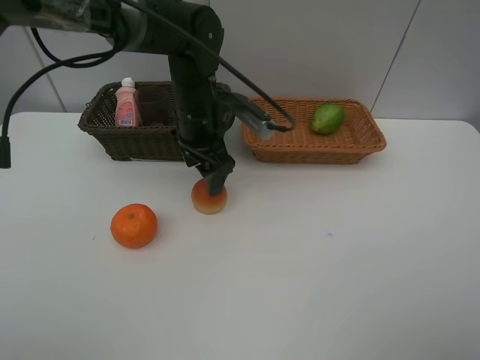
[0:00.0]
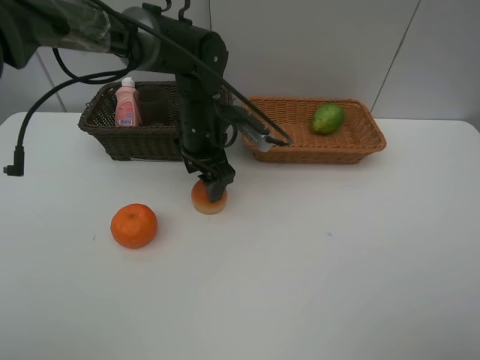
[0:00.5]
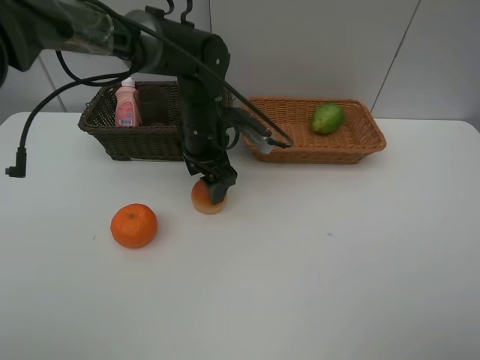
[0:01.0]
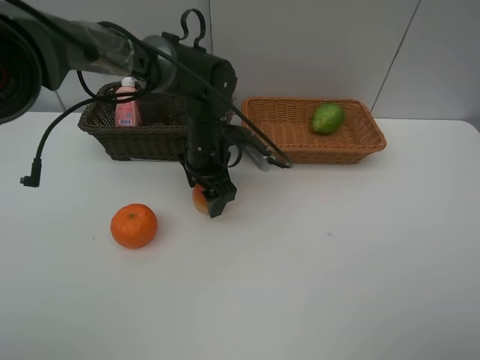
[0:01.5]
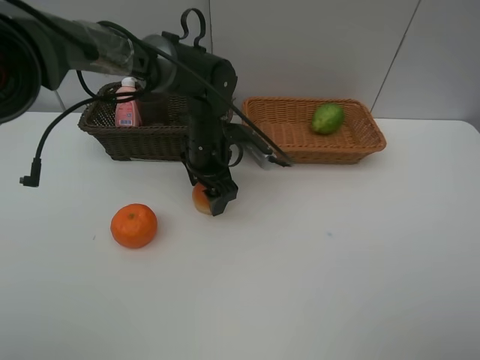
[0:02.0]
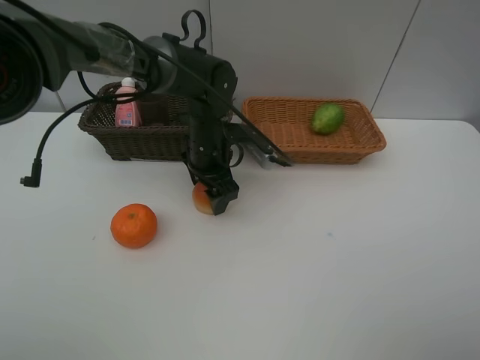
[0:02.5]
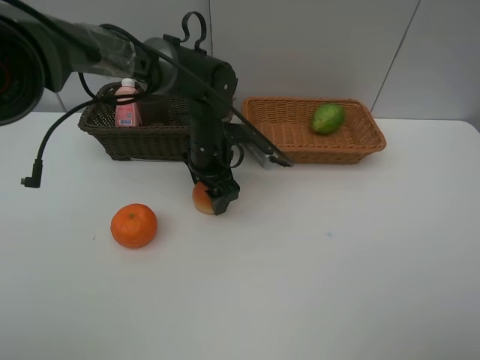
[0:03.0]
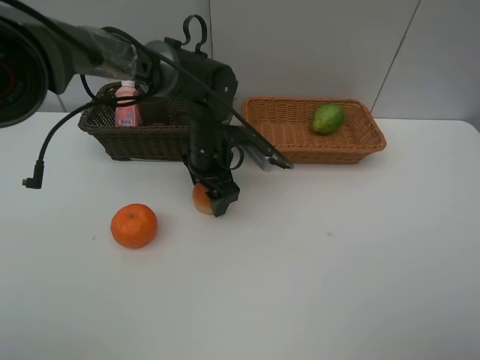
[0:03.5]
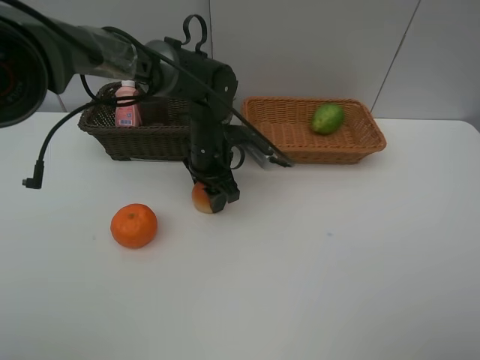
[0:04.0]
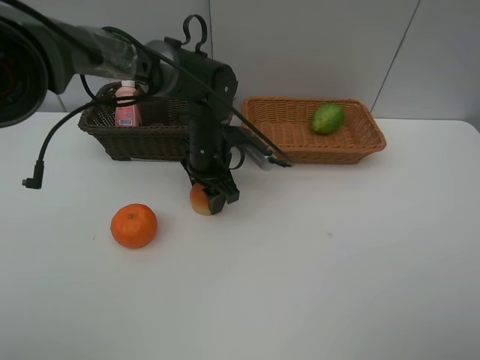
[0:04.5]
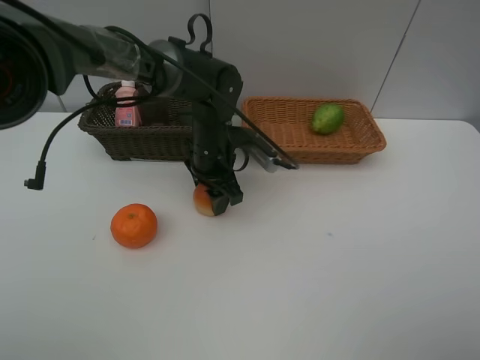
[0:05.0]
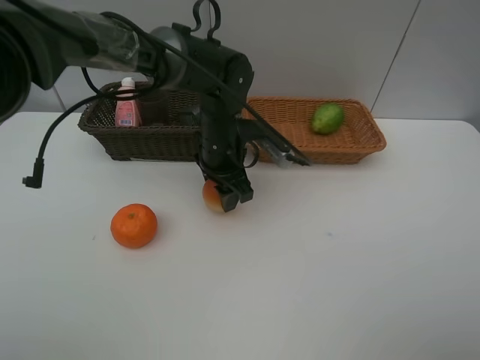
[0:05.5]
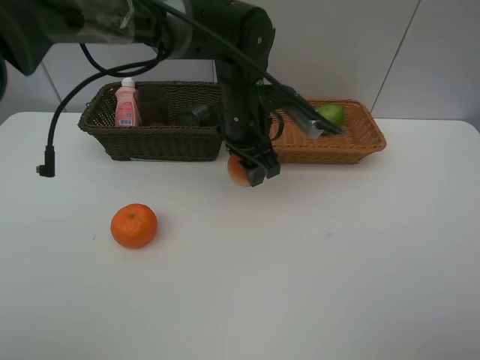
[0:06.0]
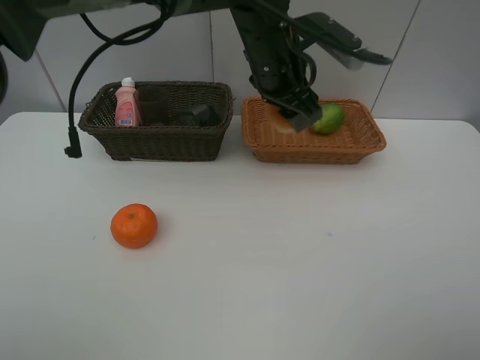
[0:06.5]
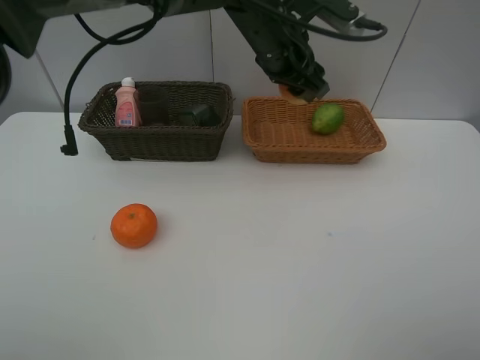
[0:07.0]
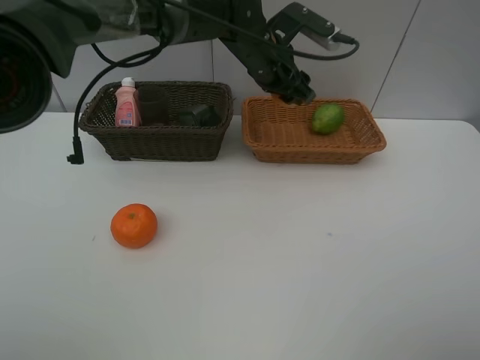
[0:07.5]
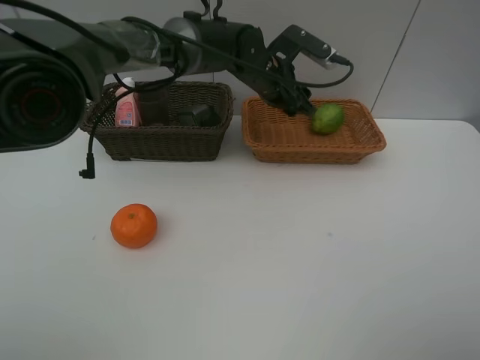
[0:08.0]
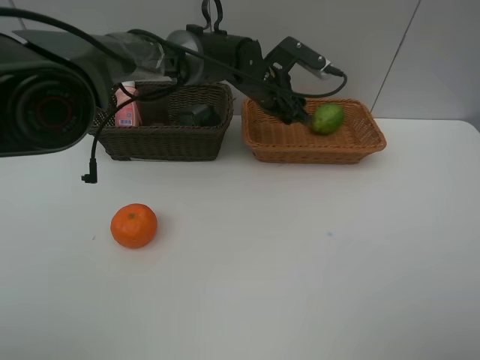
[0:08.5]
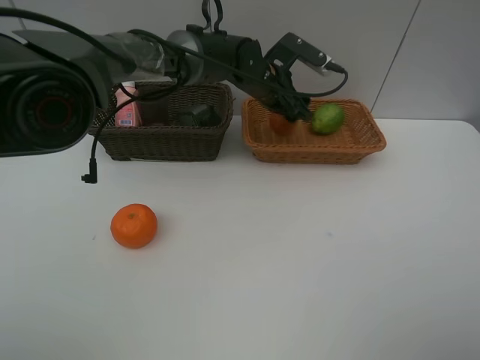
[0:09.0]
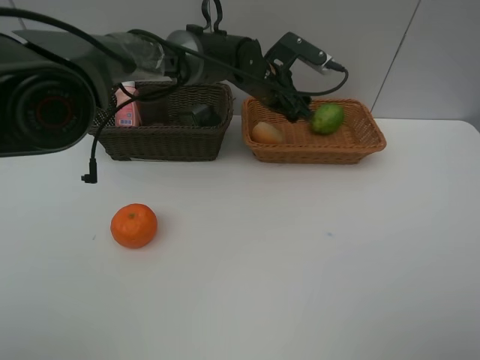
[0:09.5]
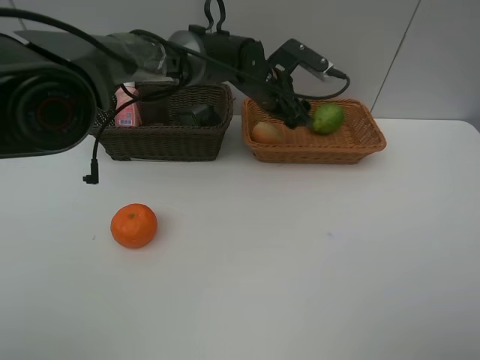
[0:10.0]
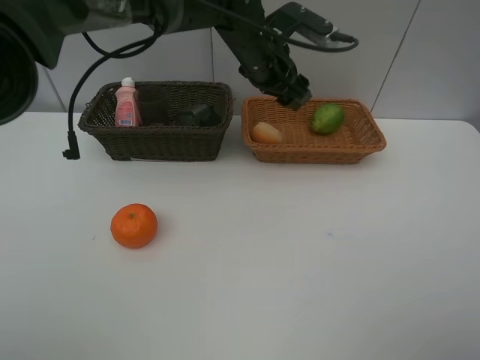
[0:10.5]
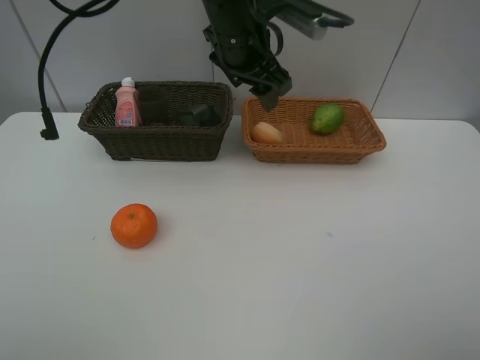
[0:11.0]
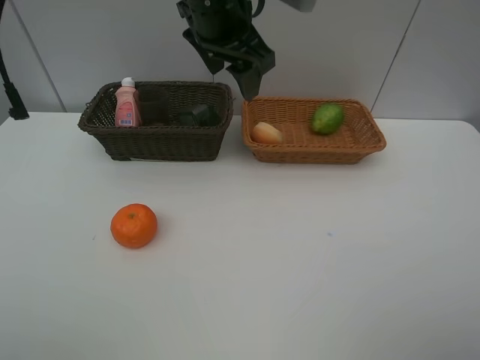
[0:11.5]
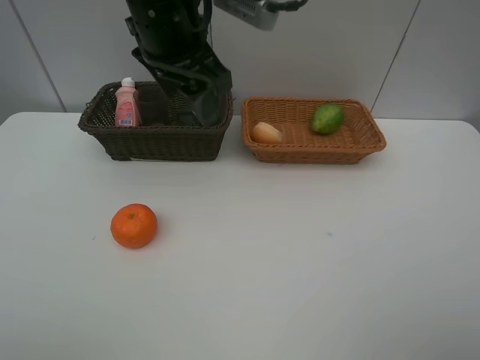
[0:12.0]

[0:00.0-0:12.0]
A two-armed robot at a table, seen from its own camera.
Task of the whole recording: place multiple objects separately in different baskets.
0:00.0 to 0:02.0: The left gripper goes roughly 5 cm downward.
0:02.0 to 0:04.0: Both grippers stay about where they are.
0:04.0 to 0:06.0: The left gripper goes about 10 cm upward and to the right.
0:06.0 to 0:08.0: The left gripper shifts roughly 10 cm forward.
0:08.0 to 0:10.0: The grippers stay close to where they were, moving slightly.
0:10.0 to 0:12.0: The left gripper is displaced upward, backward and to the left by some 25 cm.

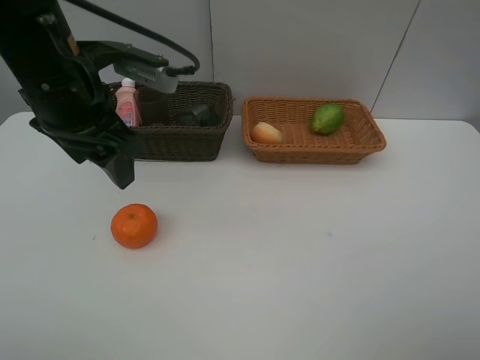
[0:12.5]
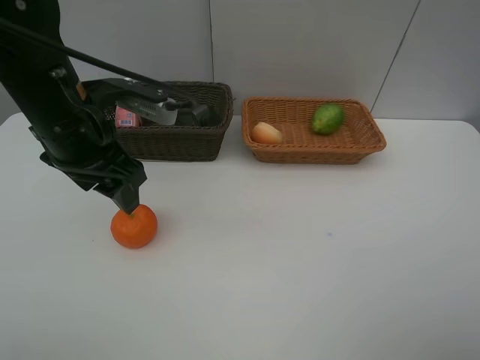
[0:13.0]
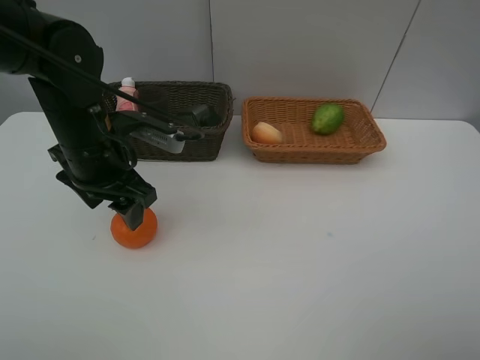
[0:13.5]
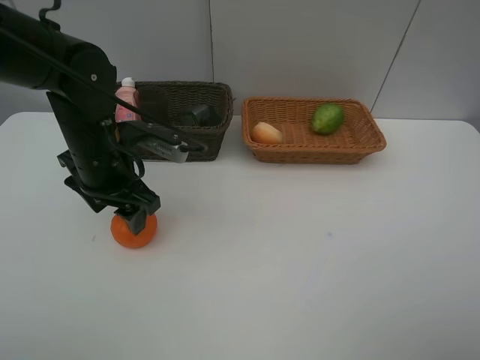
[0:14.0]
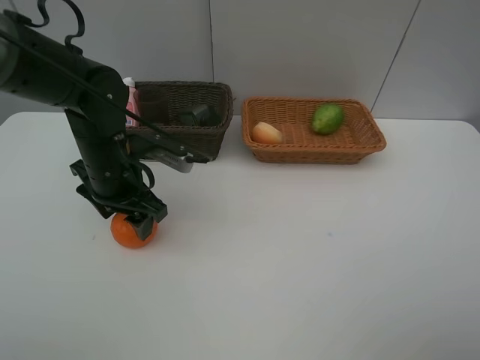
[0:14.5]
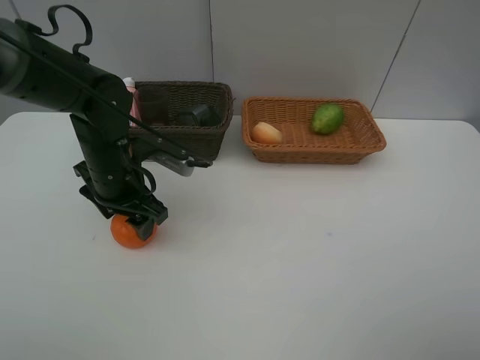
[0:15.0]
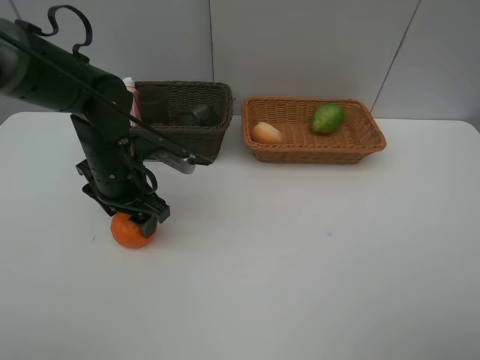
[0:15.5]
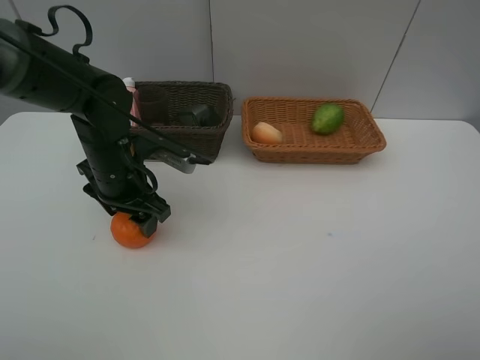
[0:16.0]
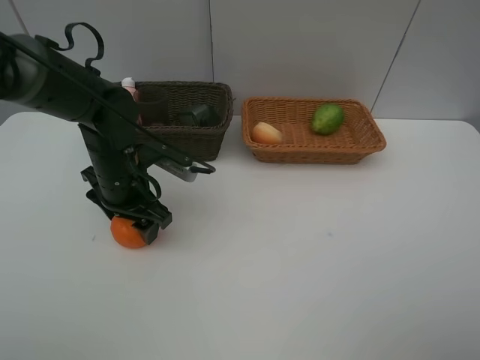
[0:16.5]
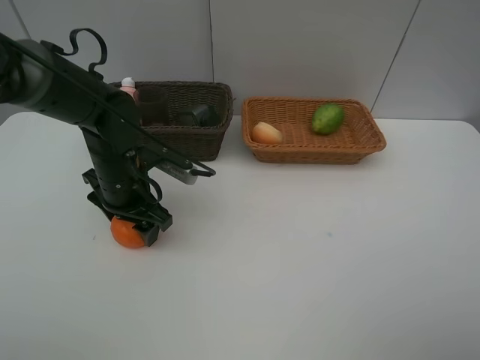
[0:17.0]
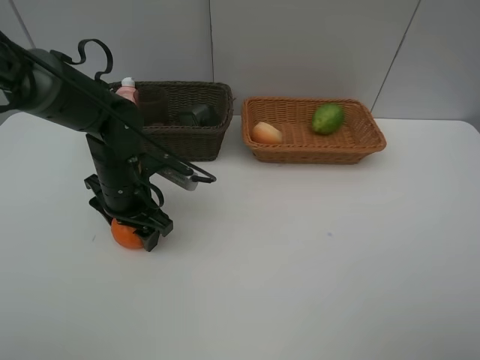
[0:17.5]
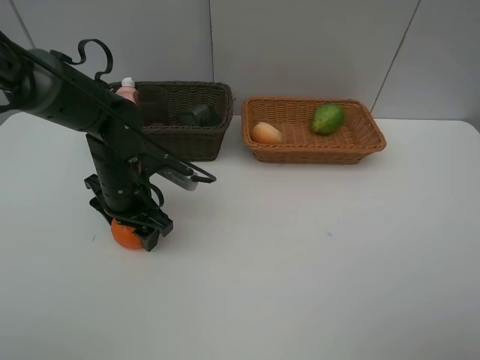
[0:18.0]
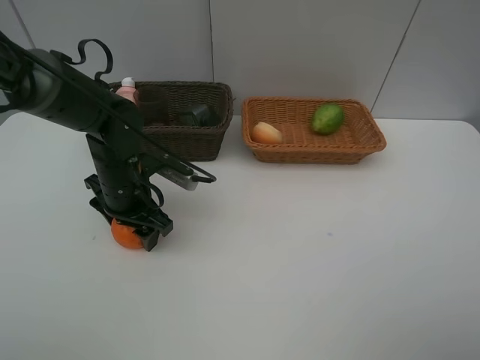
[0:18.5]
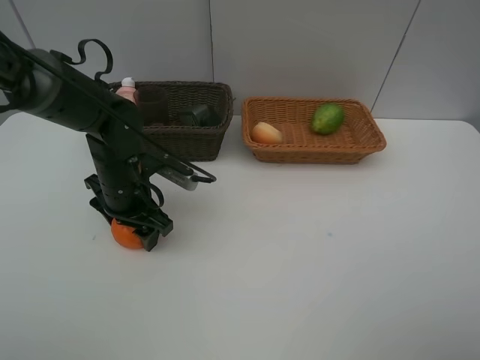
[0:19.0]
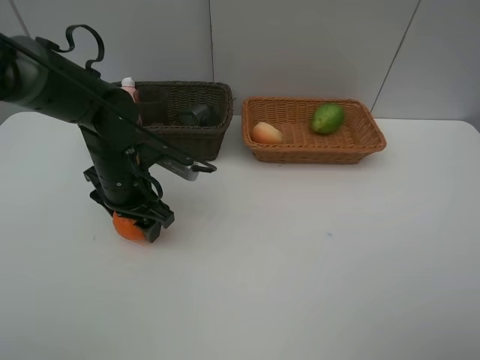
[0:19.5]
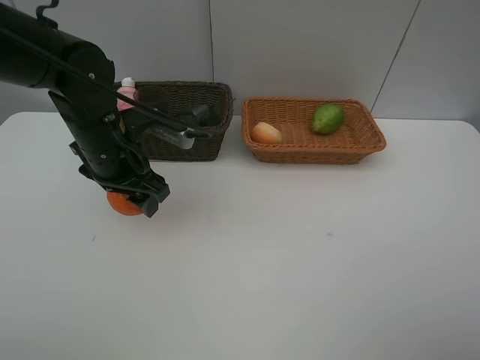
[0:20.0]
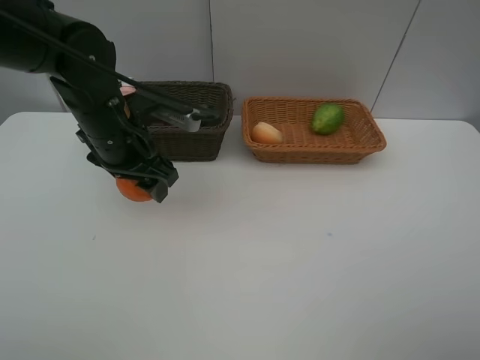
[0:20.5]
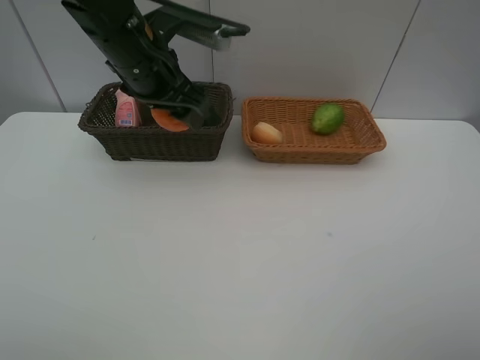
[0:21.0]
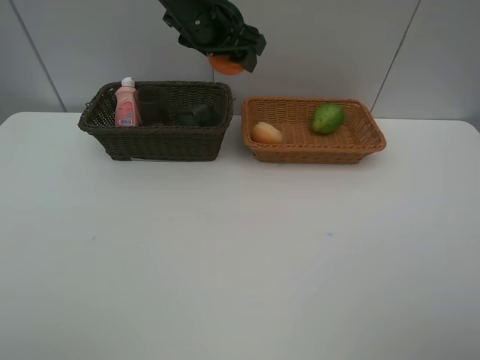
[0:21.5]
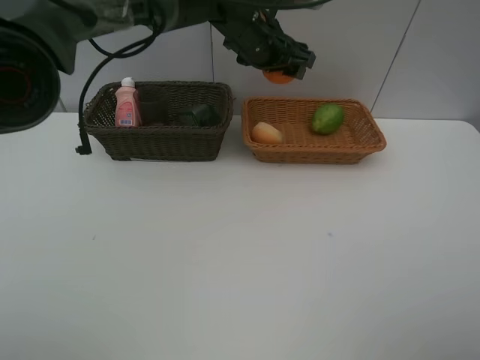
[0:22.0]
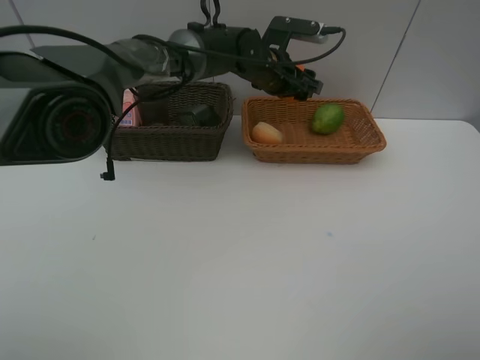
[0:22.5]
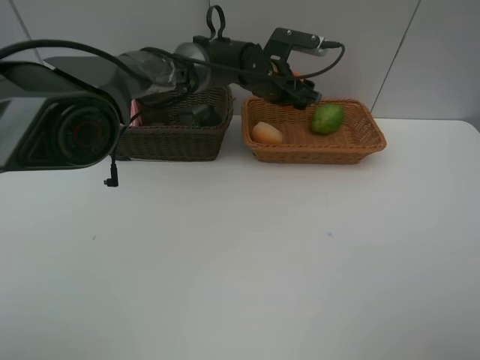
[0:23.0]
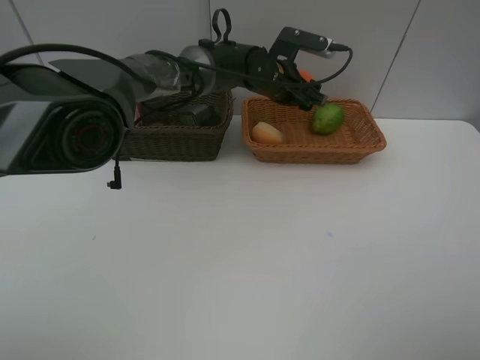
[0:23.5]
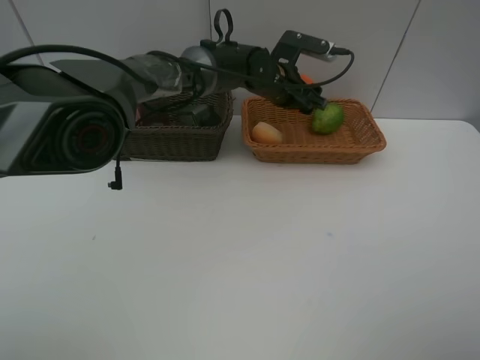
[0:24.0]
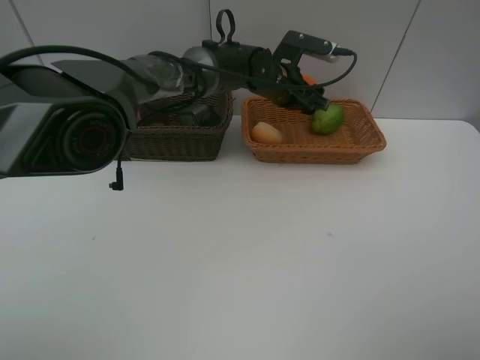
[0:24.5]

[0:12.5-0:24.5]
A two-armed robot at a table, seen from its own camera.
Task of the whole recording: place multiple objects separately in different baskets.
0:12.5 to 0:14.5: The left gripper heads downward, covering approximately 15 cm.
0:14.5 to 0:16.5: The grippers stay close to where they were, moving slightly.
0:16.5 to 0:18.5: The two grippers keep their place.
0:18.5 to 0:20.5: The left gripper heads upward, covering roughly 10 cm.
0:20.5 to 0:22.5: The left gripper shifts roughly 25 cm to the right and forward.
0:22.5 to 0:24.5: The grippers make only small movements.

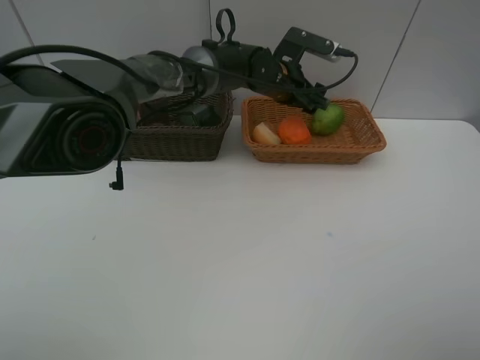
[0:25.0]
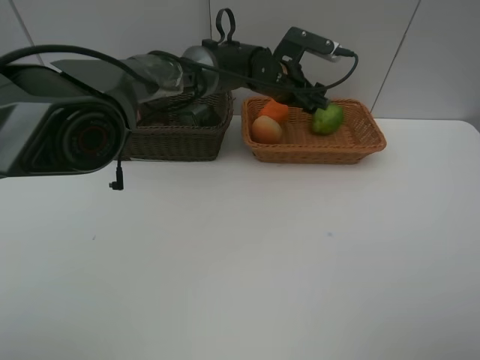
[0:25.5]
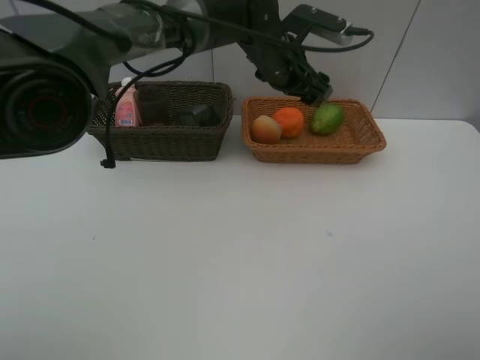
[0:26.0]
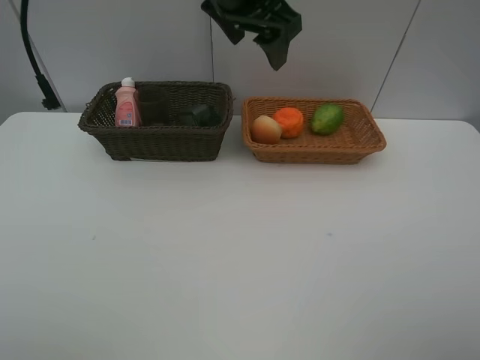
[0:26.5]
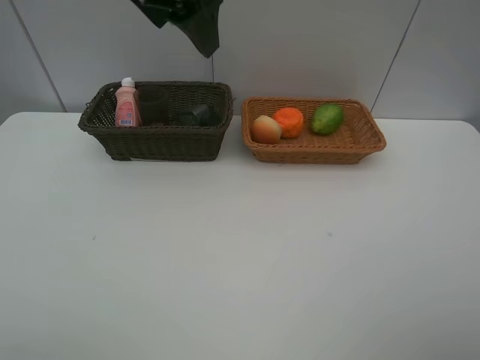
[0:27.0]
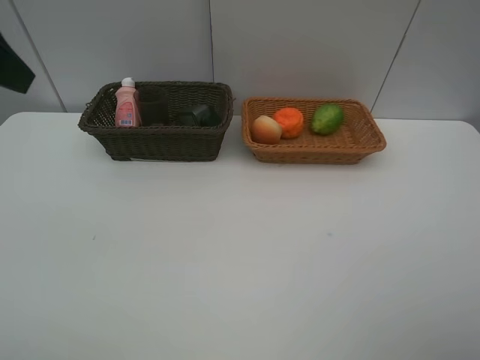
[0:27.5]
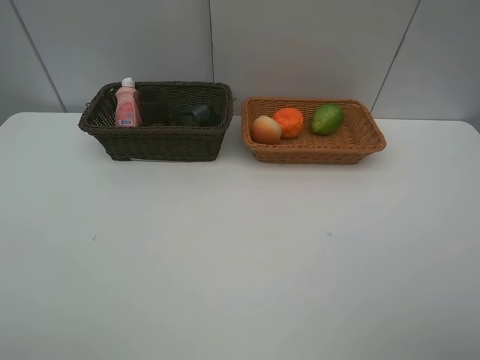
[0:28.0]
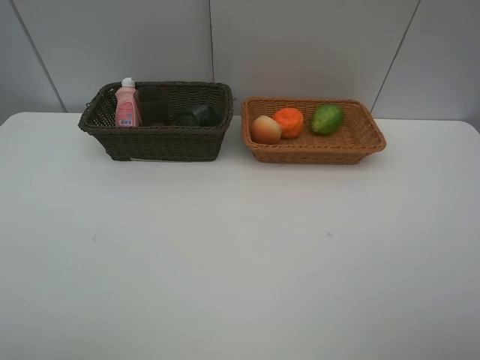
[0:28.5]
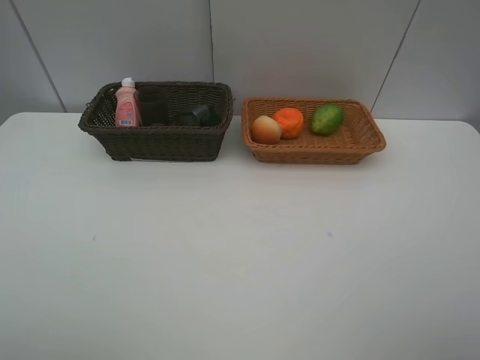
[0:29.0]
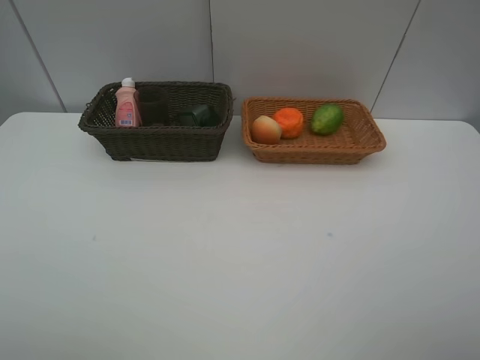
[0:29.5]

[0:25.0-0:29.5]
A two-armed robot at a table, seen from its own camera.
Task of the whole recording: place multiple objects separately in different baskets.
0:25.0 to 0:27.0: The left gripper is displaced upward, backward and to the left by some 35 cm.
0:27.0 to 0:29.5: The left gripper moves backward and to the left, approximately 35 cm.
